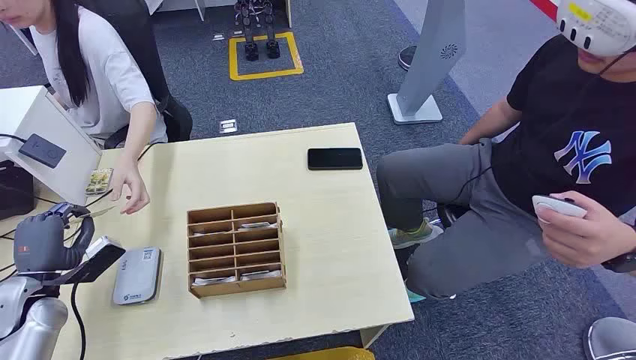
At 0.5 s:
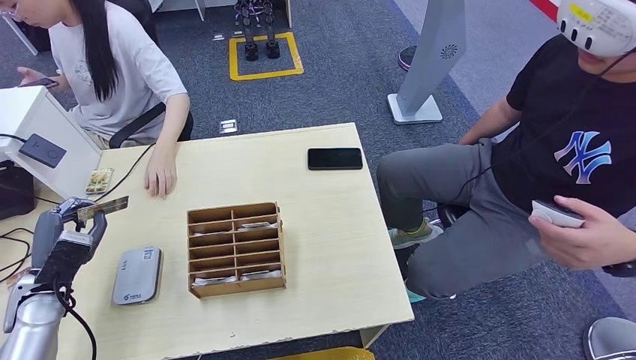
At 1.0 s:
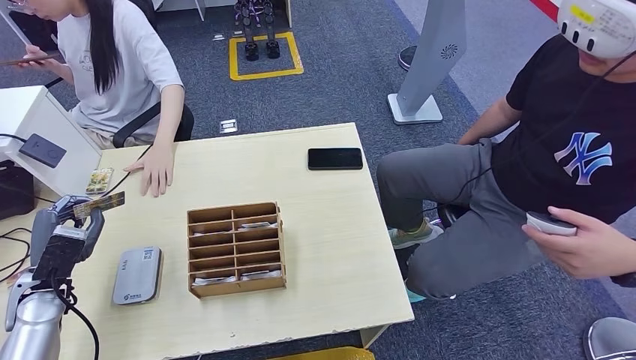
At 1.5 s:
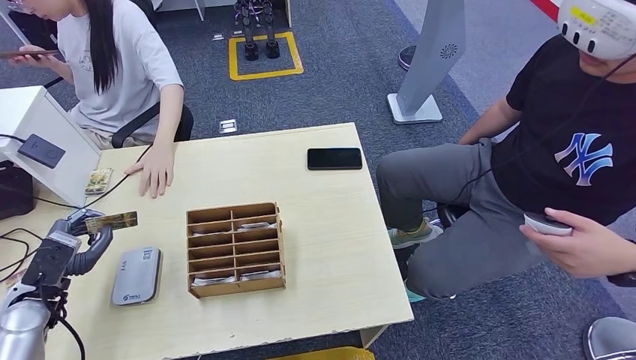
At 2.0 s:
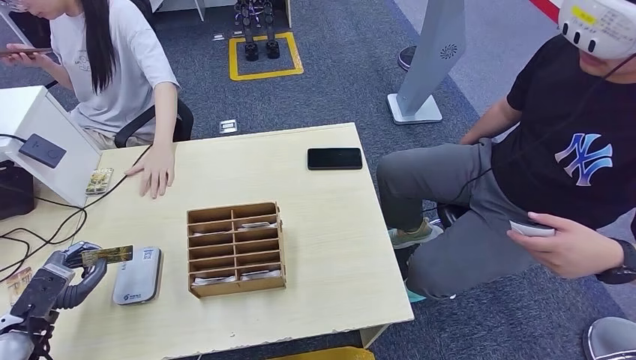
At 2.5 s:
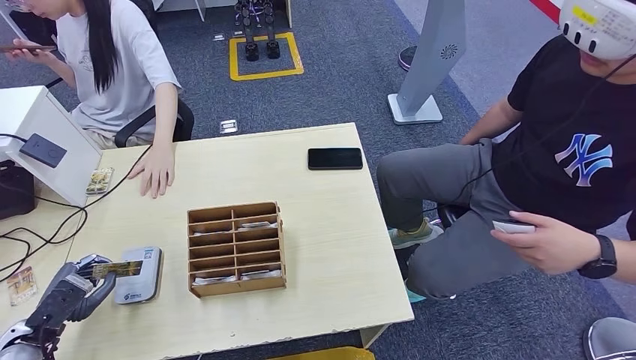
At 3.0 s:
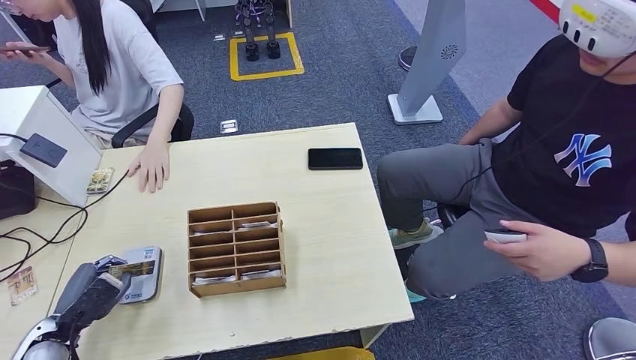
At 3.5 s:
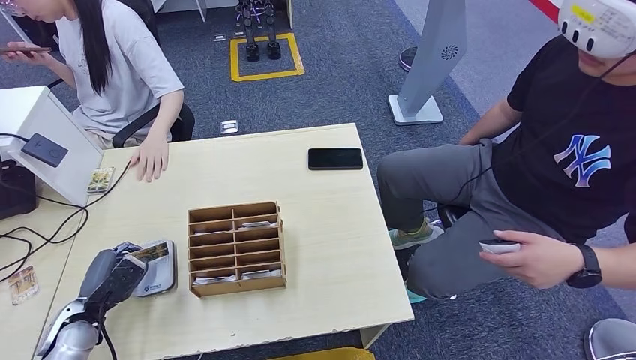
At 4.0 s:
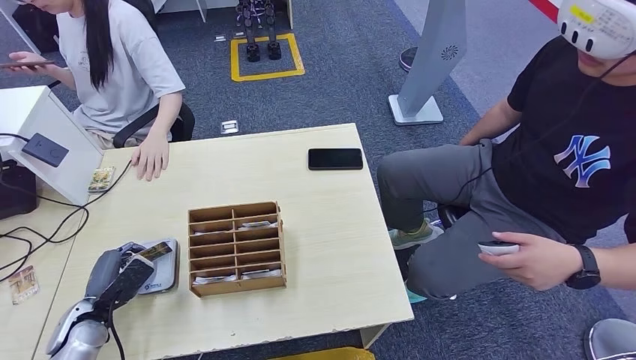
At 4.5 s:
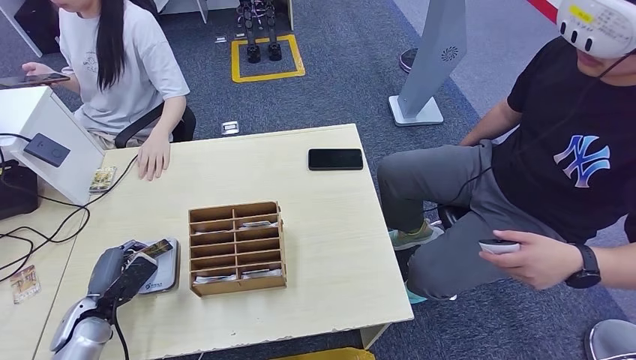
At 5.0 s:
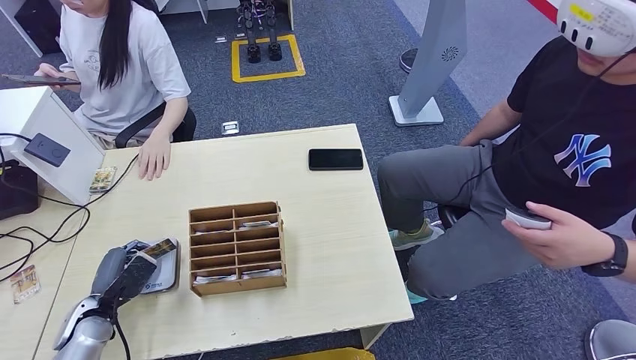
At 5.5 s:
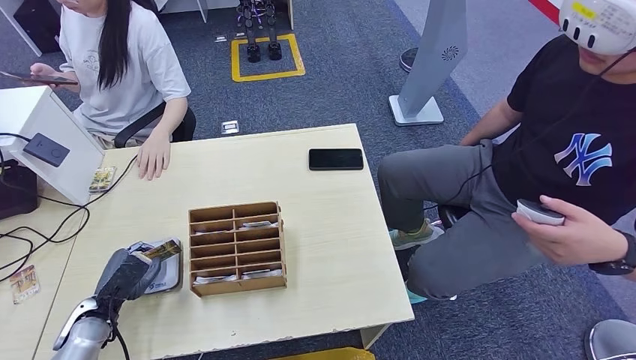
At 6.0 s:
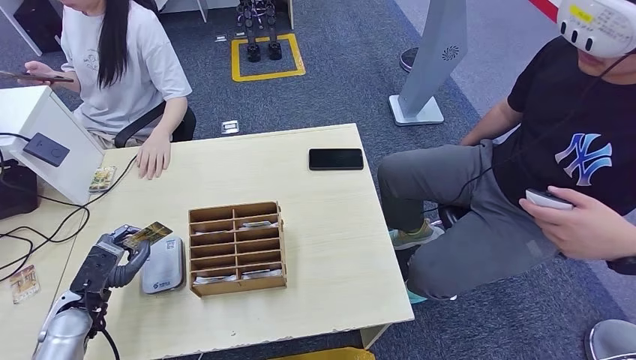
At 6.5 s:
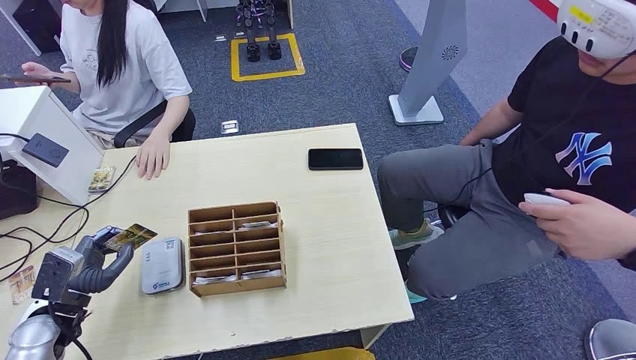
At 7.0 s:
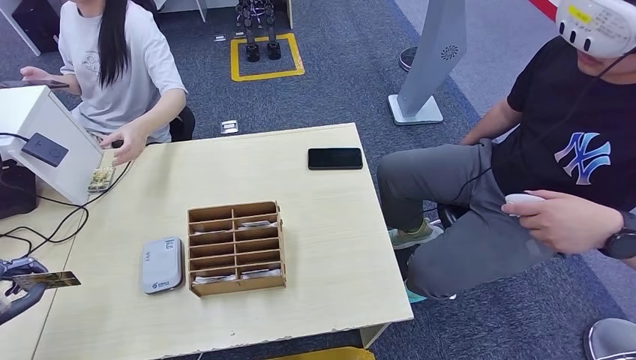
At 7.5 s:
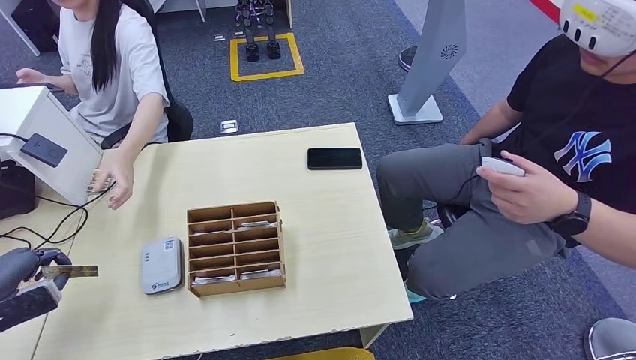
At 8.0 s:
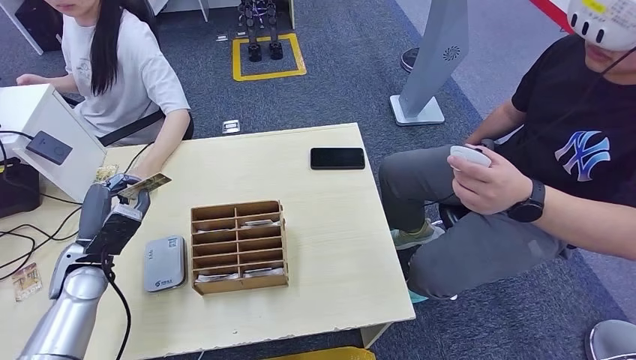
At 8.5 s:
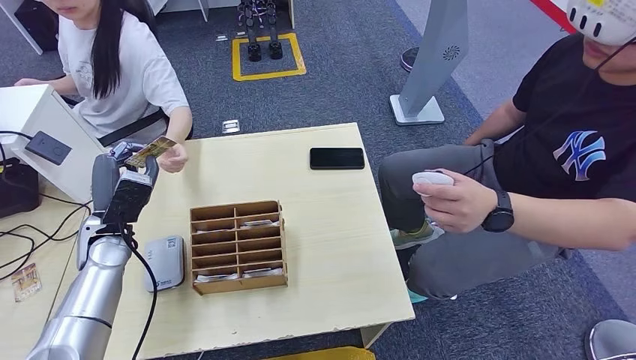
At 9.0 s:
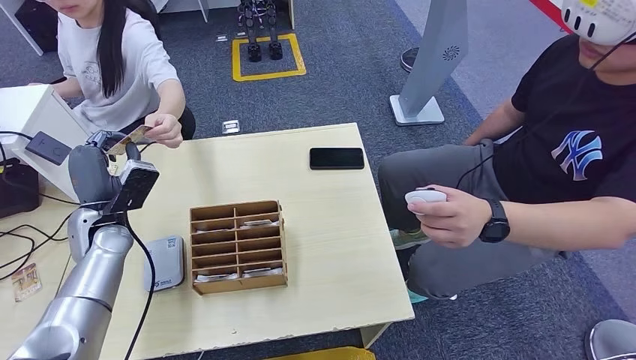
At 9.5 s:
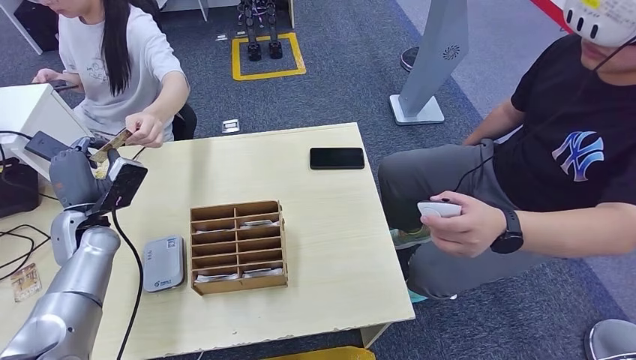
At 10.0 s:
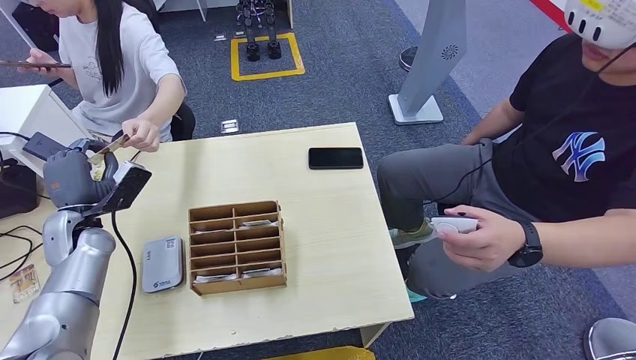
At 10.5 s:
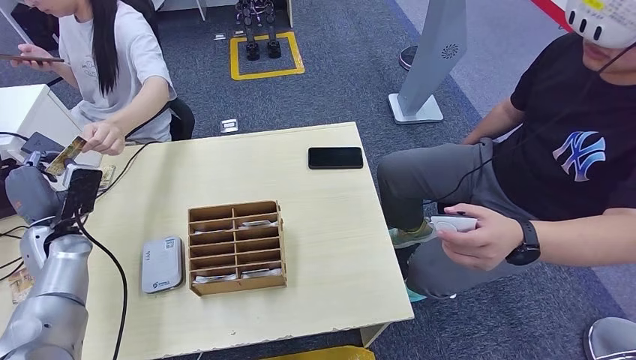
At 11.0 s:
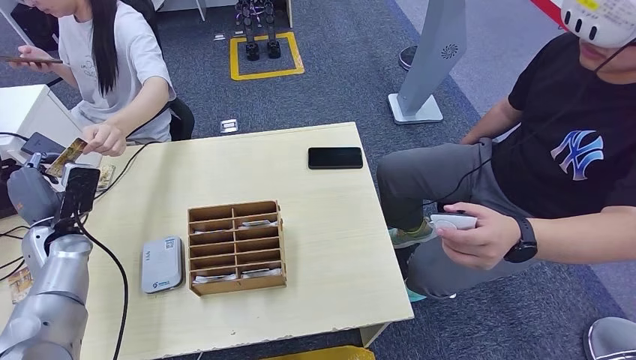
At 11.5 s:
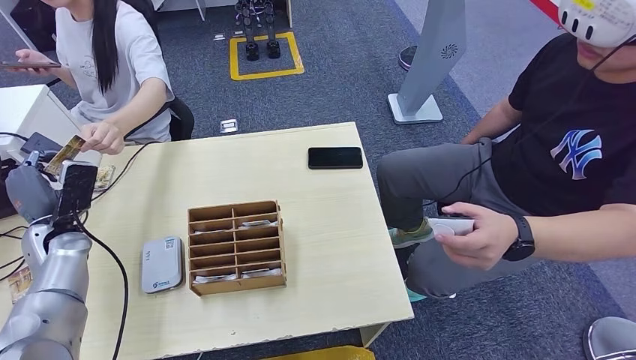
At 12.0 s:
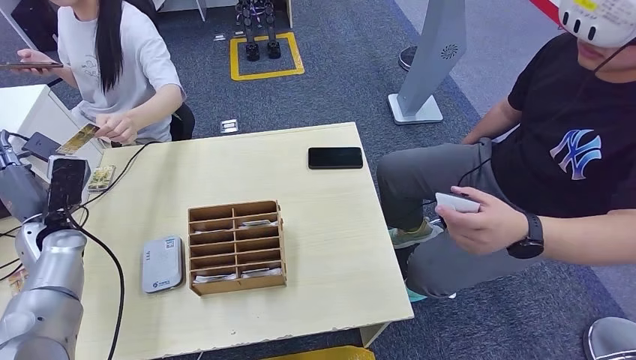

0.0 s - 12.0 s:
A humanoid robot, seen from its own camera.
Step, 0.0 s - 1.0 s: Take the ID card from the person's hand.
Step, 1.5 s - 5.0 s: Place the ID card on the card reader.
2.0 s - 4.0 s: The left hand heads to the right, covering roughly 5 cm.

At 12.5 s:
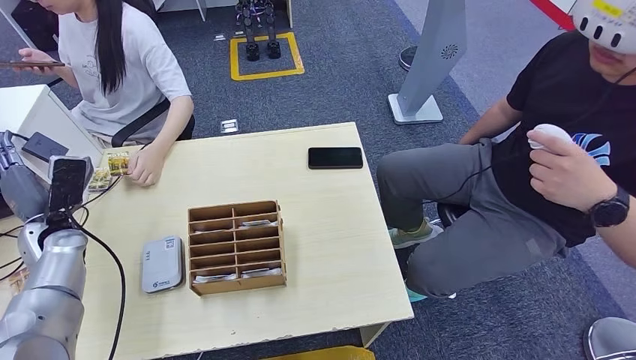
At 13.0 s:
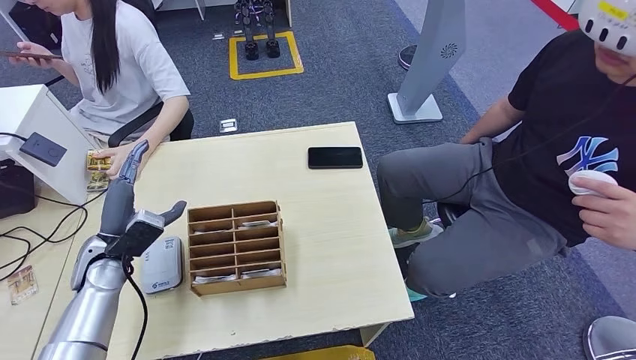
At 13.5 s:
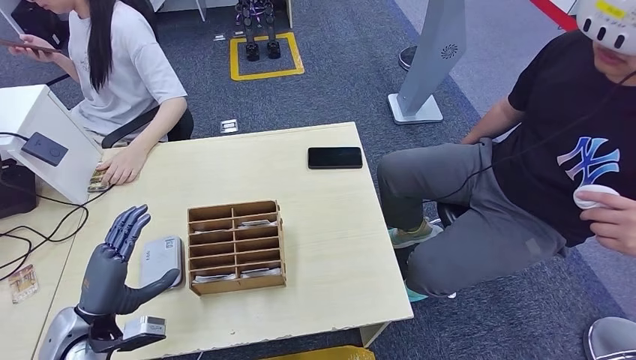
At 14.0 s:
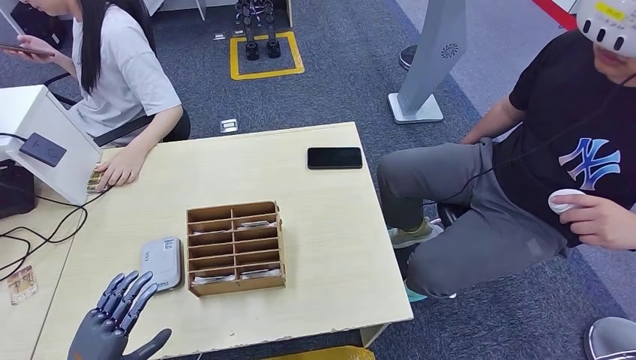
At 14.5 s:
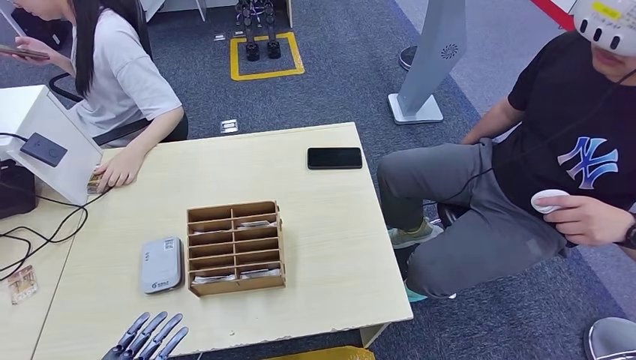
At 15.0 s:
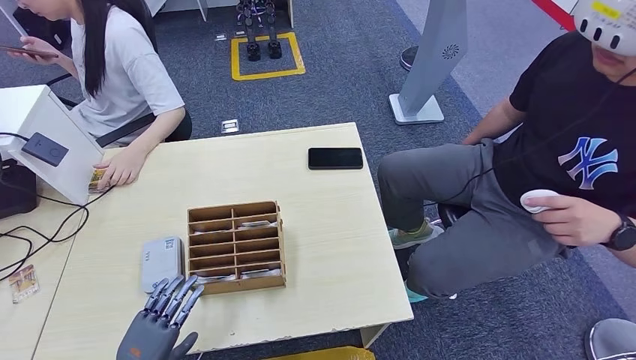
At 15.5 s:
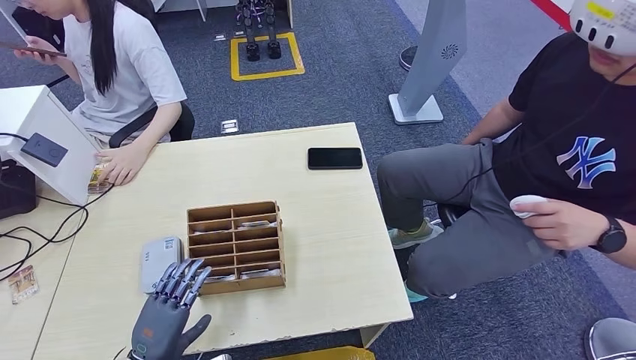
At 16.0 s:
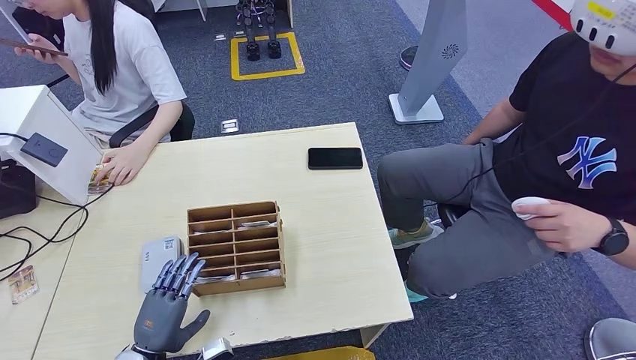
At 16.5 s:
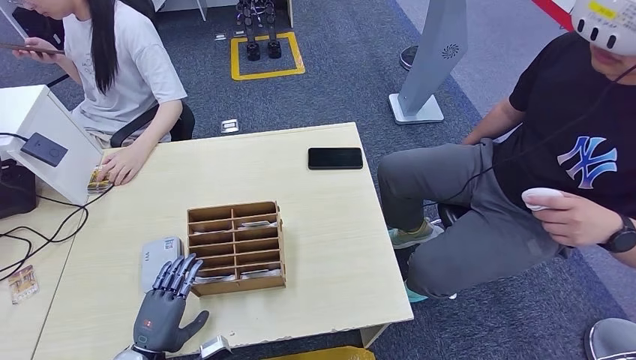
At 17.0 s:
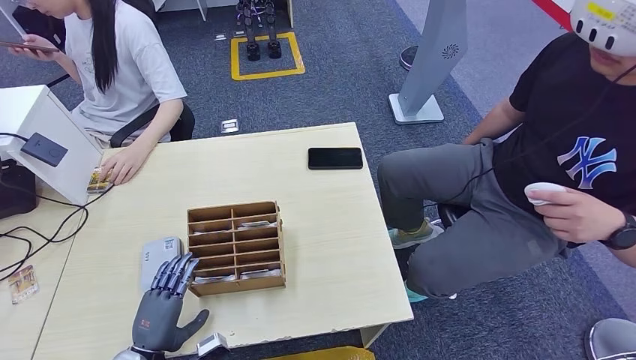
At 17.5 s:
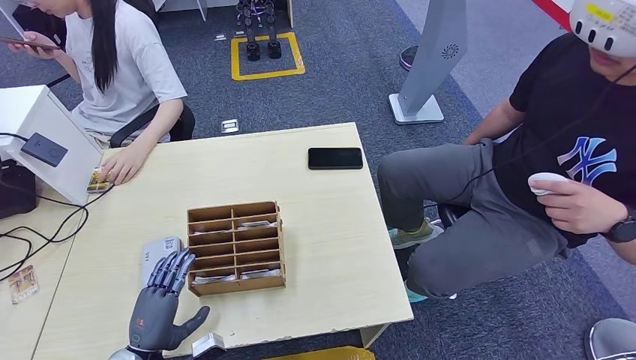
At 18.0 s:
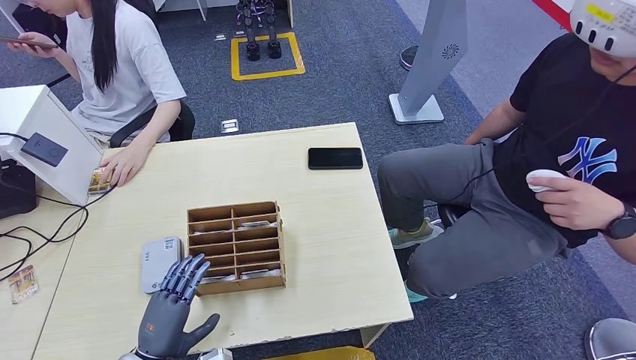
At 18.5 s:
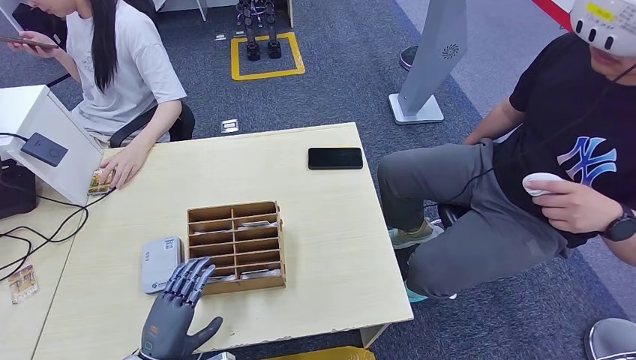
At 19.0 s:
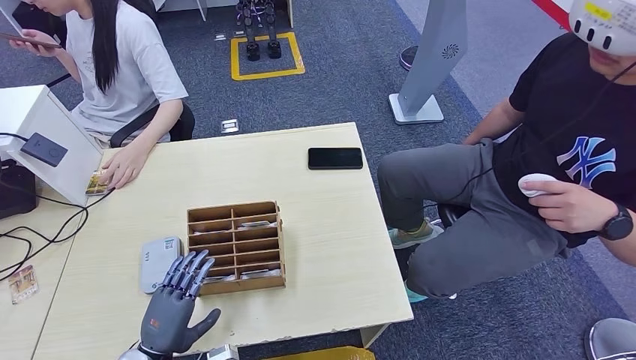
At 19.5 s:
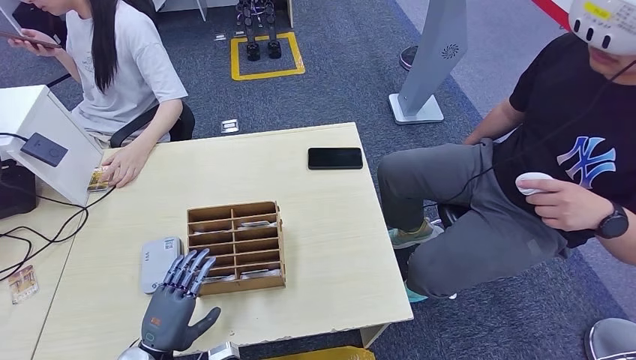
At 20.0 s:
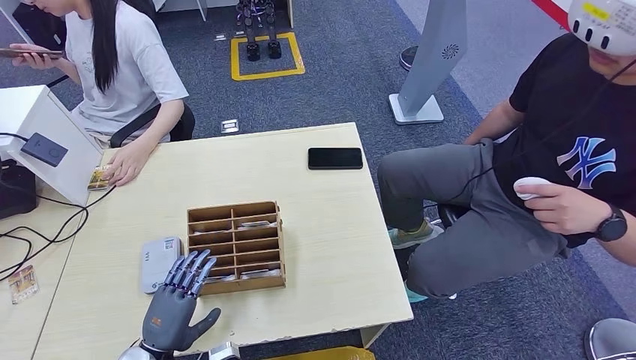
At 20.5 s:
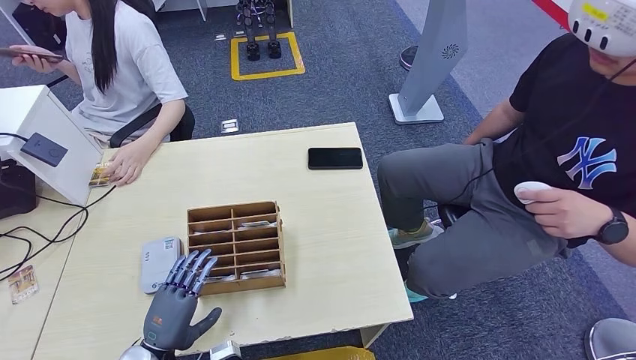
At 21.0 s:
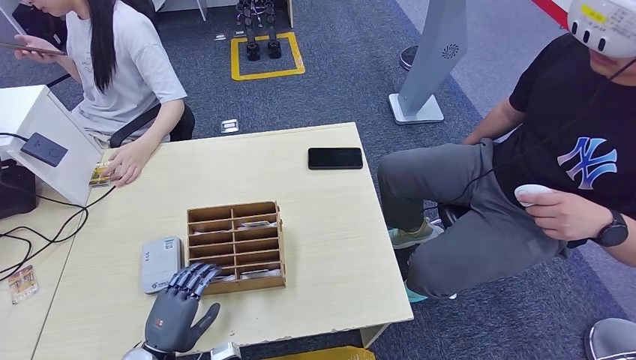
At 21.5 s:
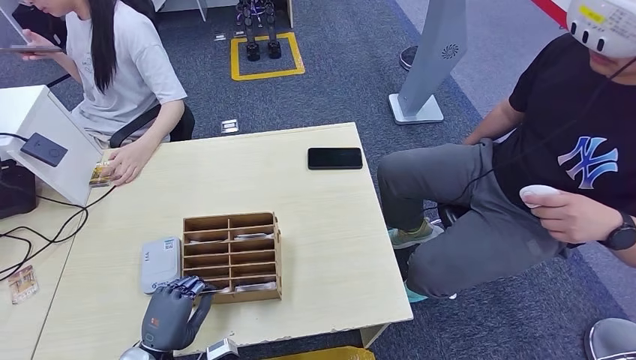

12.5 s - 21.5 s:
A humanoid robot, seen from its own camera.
12.5 s - 14.5 s: The left hand travels backward by some 30 cm.
14.5 s - 17.0 s: The left hand shifts approximately 10 cm forward and to the right.
17.0 s - 19.5 s: The hands make only small movements.
19.5 s - 21.5 s: Both hands stay about where they are.
